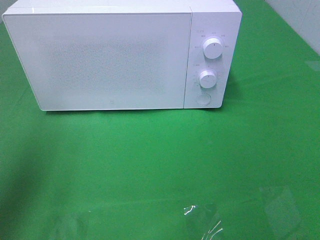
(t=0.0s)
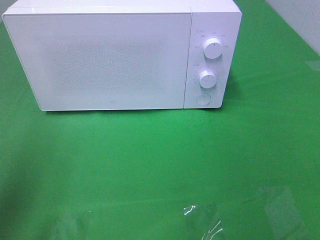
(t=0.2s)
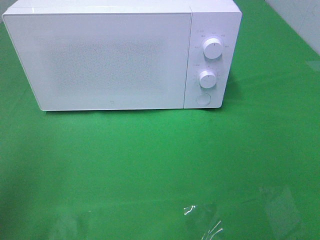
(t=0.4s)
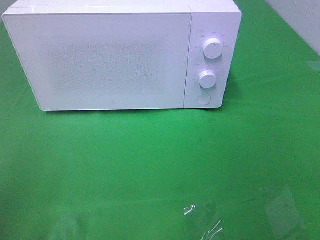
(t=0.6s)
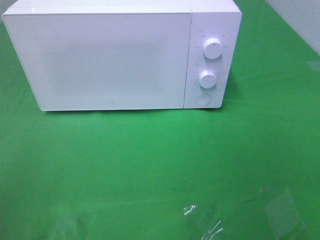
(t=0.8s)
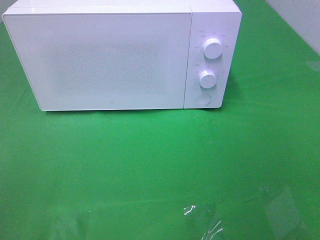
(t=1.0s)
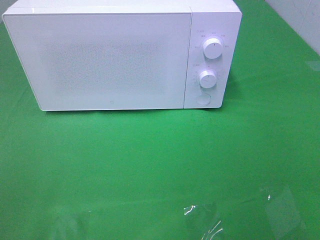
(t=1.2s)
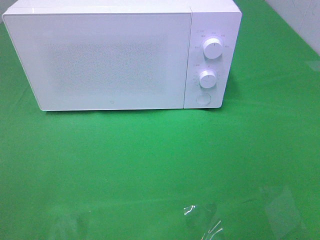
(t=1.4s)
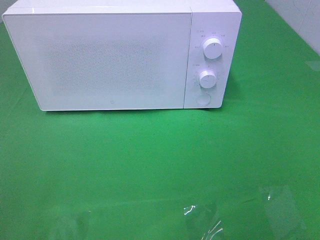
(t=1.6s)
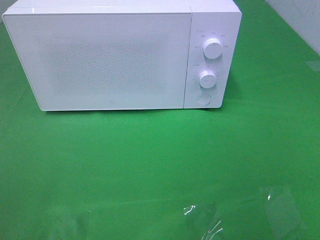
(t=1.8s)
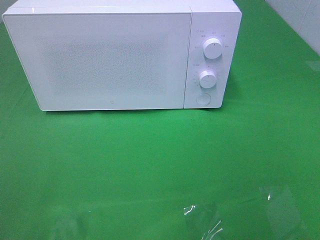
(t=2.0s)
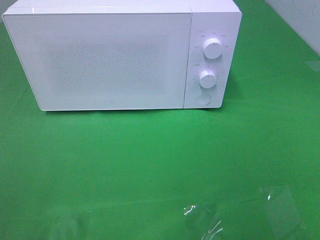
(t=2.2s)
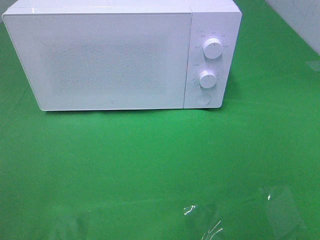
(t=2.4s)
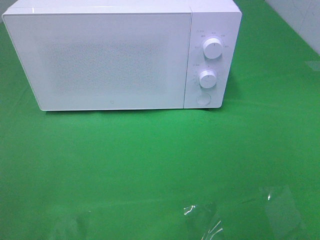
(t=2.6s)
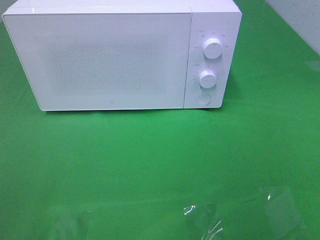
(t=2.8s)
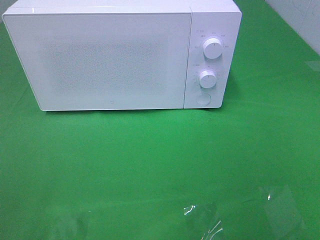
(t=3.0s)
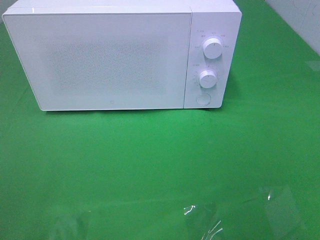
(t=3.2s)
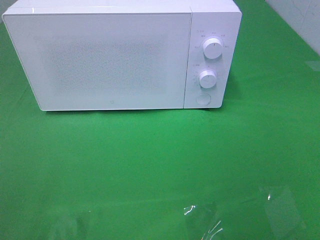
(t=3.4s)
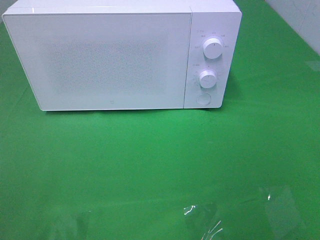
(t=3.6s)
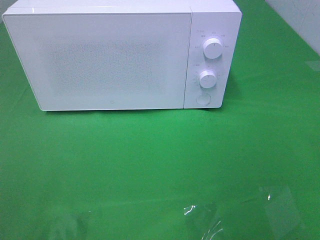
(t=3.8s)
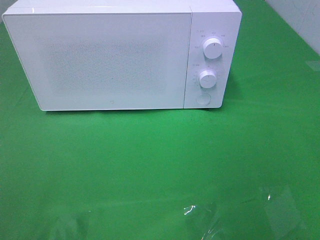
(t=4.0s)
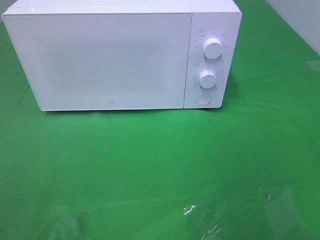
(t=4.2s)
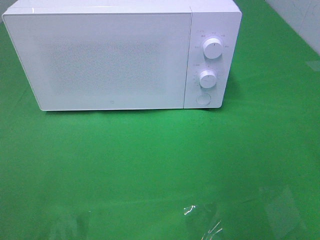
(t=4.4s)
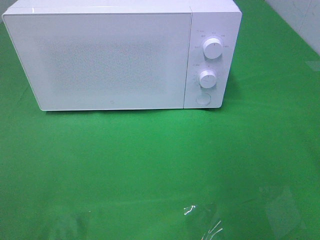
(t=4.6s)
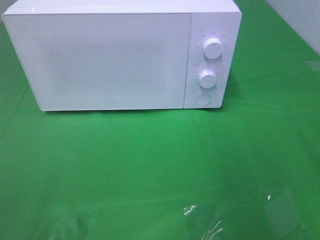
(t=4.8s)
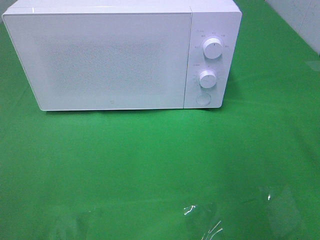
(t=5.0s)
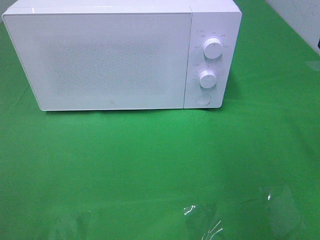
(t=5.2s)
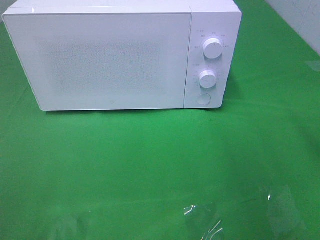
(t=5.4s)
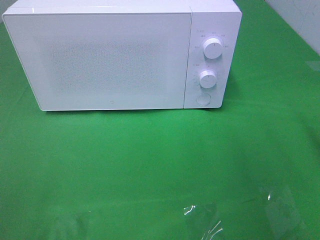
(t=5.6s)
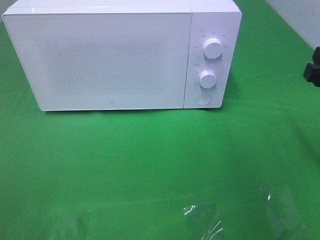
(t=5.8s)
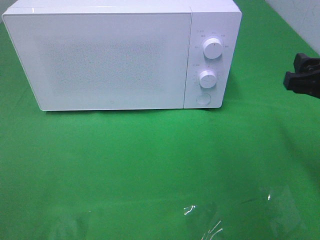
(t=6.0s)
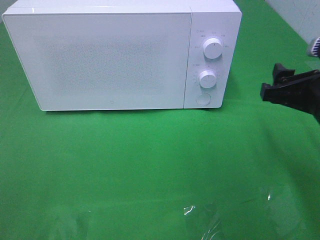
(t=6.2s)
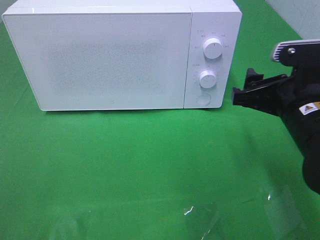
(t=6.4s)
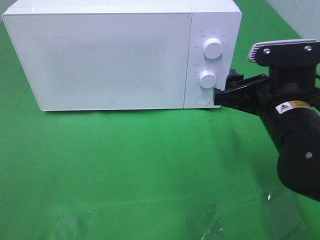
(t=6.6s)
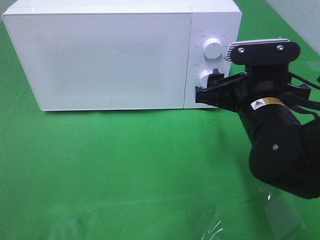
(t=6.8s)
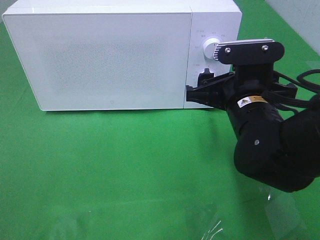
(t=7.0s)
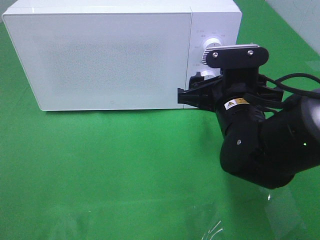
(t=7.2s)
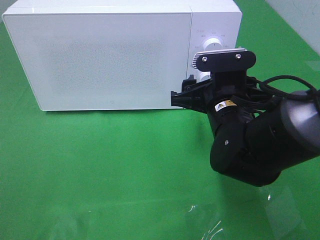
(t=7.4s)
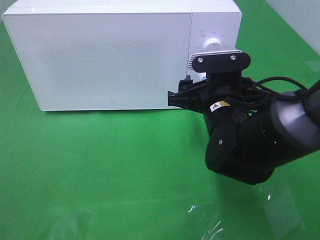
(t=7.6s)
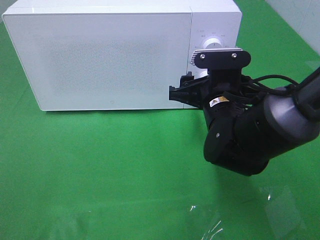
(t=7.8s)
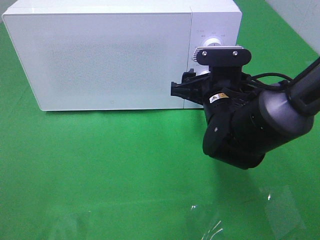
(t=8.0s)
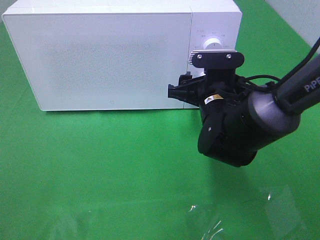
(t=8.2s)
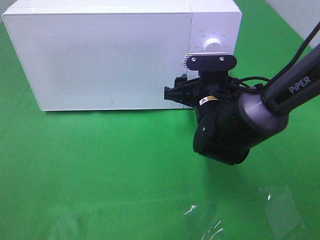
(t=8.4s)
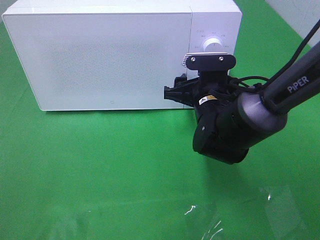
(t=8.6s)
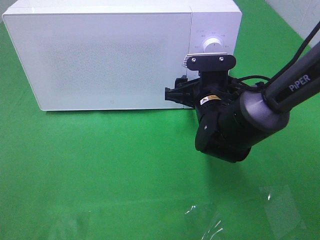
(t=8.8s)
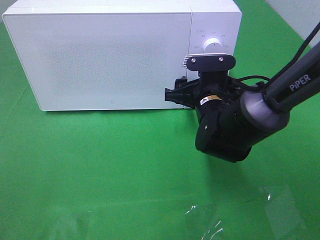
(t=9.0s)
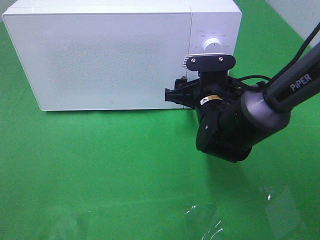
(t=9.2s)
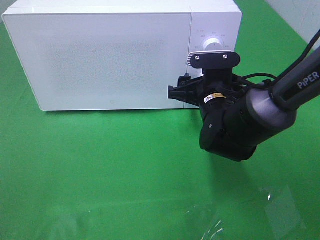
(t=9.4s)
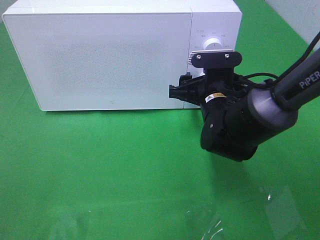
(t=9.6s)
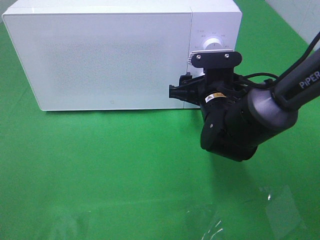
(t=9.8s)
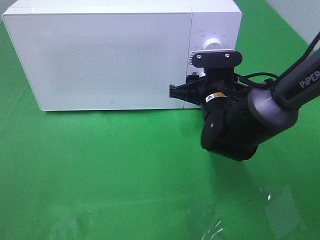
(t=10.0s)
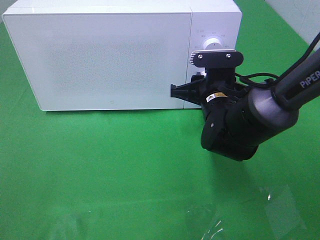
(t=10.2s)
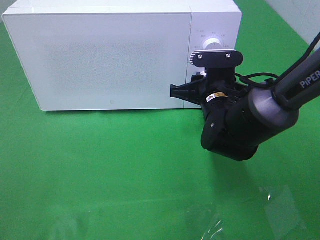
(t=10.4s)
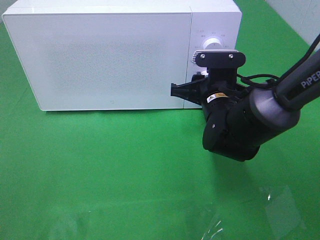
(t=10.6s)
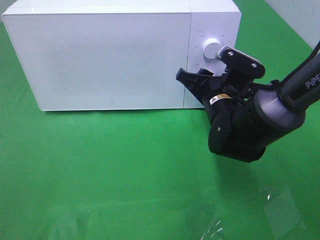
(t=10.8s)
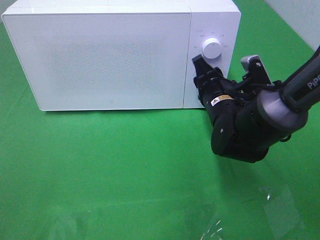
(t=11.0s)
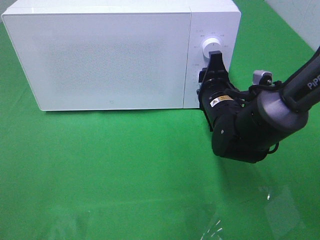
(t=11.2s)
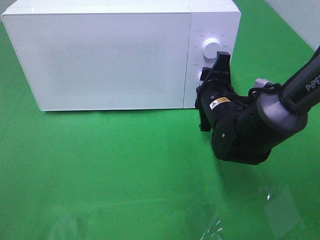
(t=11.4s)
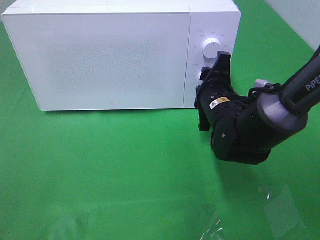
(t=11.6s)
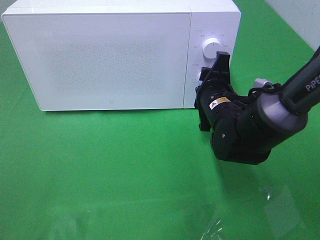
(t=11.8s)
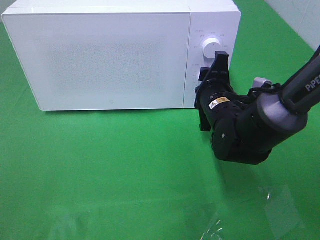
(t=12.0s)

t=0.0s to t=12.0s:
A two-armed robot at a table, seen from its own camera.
Task of the whole recording: Heat the burger.
t=0.0s to t=1.6s: The left gripper is displaced backward by some 20 cm.
t=1.6s to t=3.0s: Both grippers stay put.
t=4.4s to t=6.0s: The right gripper travels downward and forward by approximately 15 cm.
t=6.0s to t=7.6s: The right gripper moves to the left, downward and forward, some 15 cm.
t=7.6s to t=9.0s: The right gripper is displaced forward by roughly 5 cm.
t=9.0s to t=10.4s: The right gripper closes its fingers.

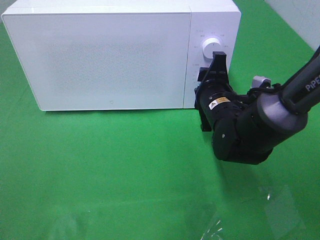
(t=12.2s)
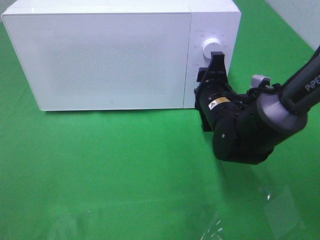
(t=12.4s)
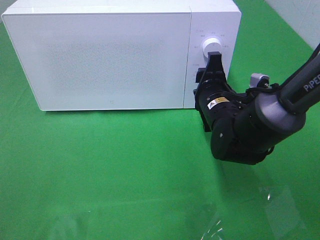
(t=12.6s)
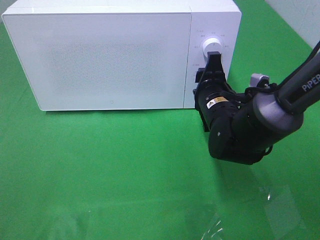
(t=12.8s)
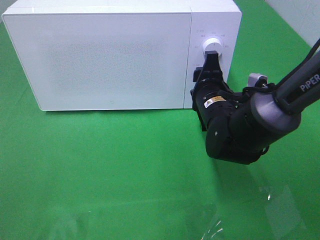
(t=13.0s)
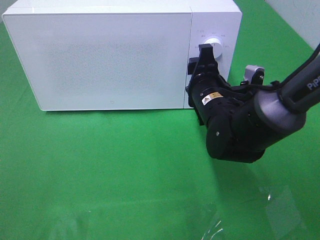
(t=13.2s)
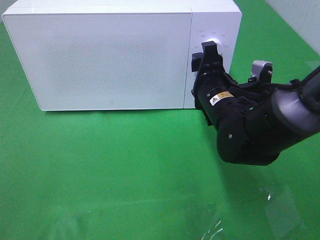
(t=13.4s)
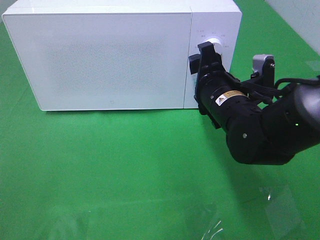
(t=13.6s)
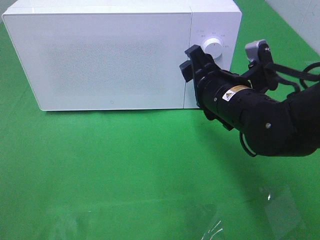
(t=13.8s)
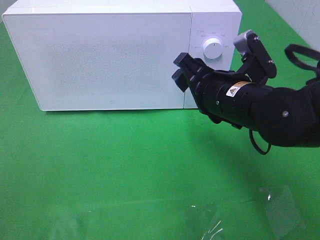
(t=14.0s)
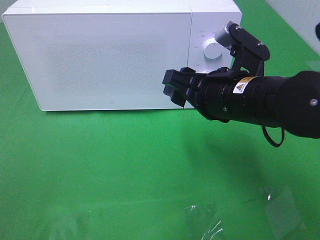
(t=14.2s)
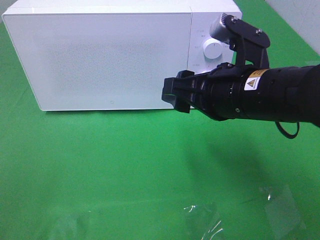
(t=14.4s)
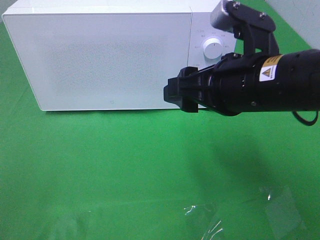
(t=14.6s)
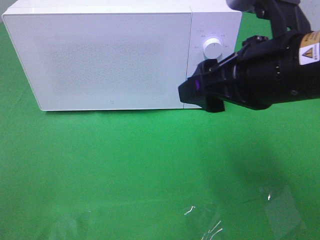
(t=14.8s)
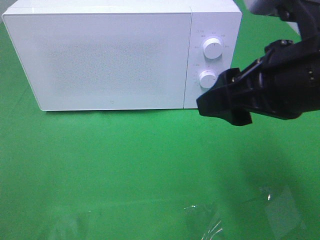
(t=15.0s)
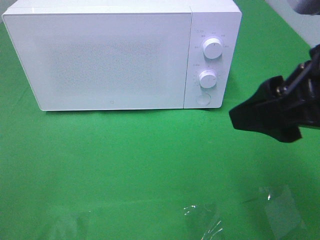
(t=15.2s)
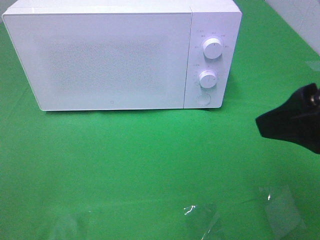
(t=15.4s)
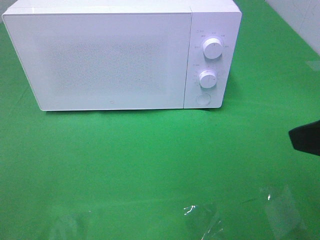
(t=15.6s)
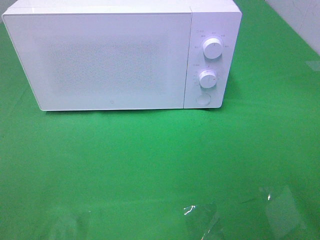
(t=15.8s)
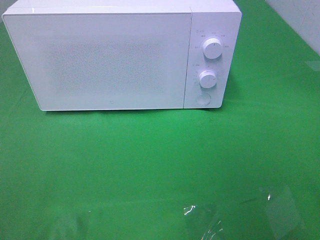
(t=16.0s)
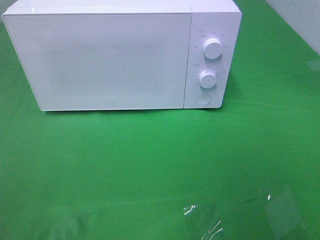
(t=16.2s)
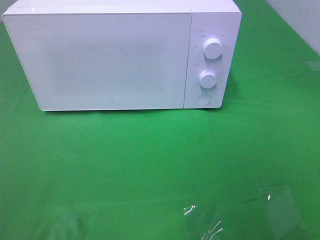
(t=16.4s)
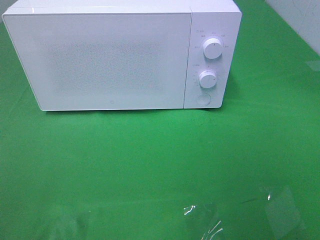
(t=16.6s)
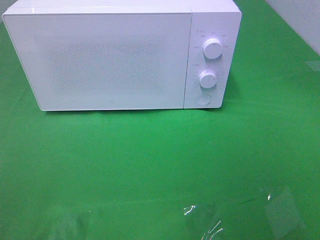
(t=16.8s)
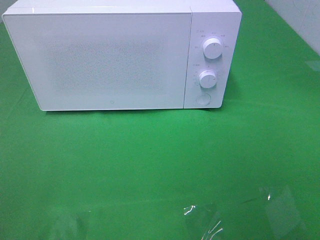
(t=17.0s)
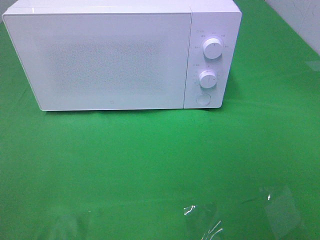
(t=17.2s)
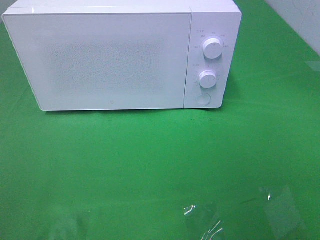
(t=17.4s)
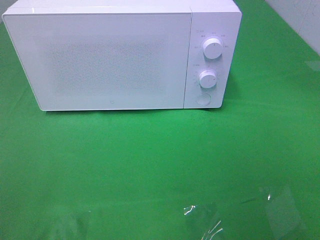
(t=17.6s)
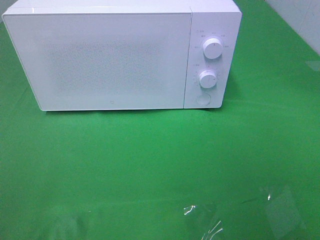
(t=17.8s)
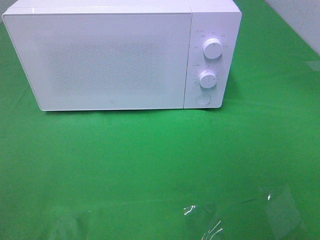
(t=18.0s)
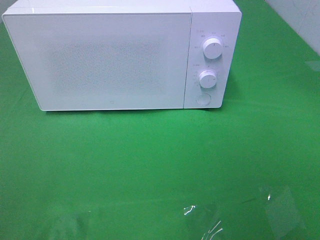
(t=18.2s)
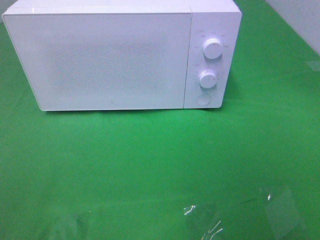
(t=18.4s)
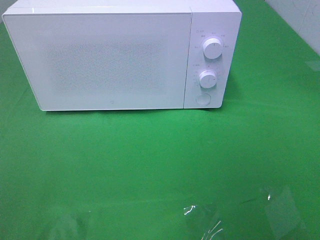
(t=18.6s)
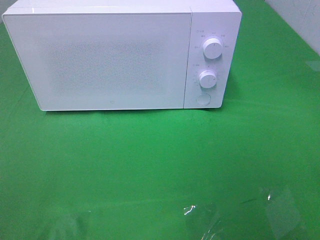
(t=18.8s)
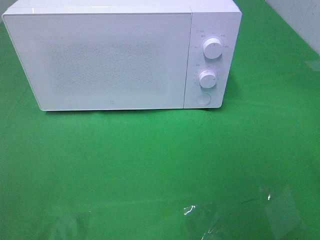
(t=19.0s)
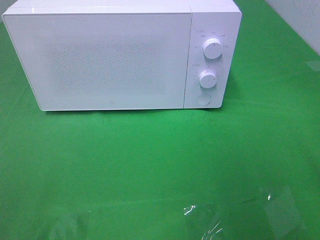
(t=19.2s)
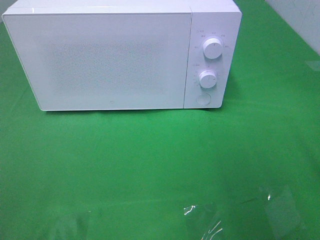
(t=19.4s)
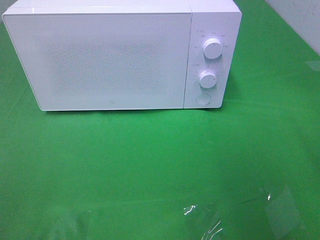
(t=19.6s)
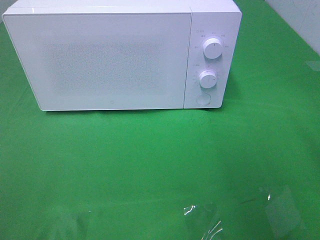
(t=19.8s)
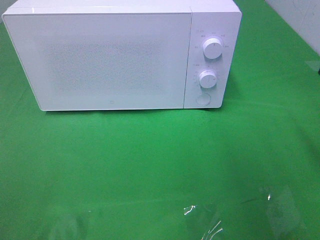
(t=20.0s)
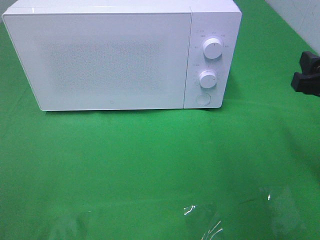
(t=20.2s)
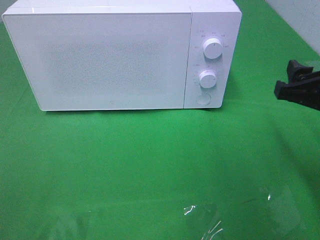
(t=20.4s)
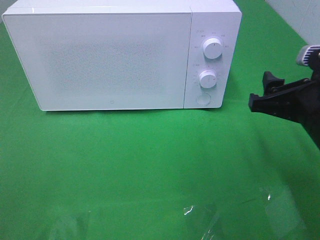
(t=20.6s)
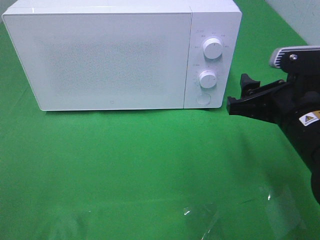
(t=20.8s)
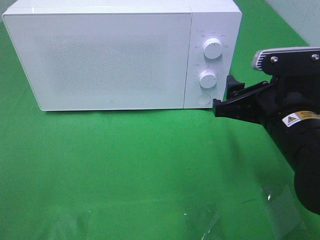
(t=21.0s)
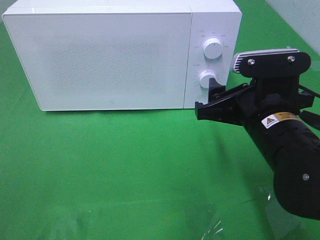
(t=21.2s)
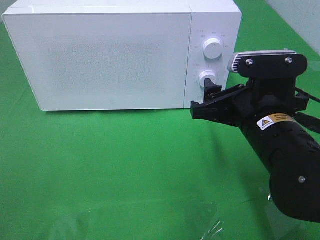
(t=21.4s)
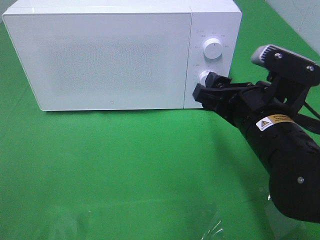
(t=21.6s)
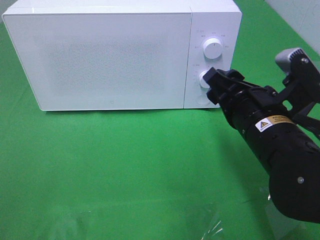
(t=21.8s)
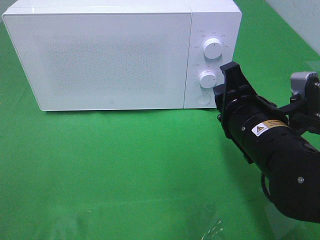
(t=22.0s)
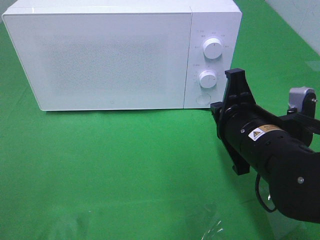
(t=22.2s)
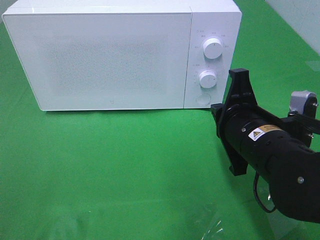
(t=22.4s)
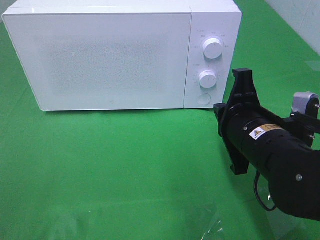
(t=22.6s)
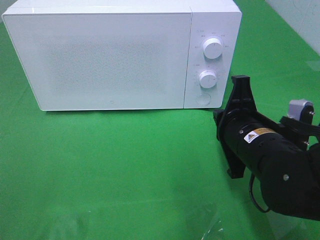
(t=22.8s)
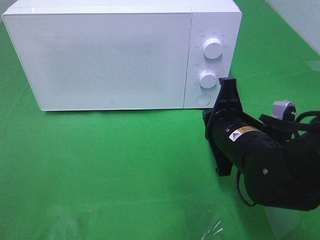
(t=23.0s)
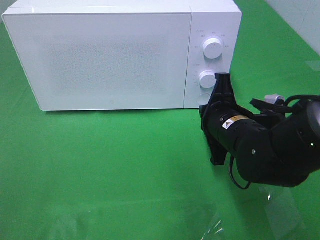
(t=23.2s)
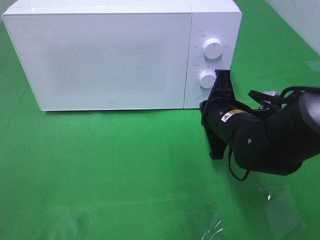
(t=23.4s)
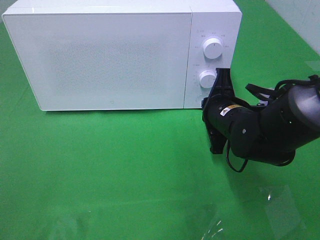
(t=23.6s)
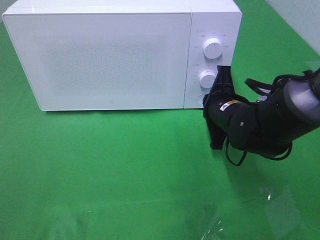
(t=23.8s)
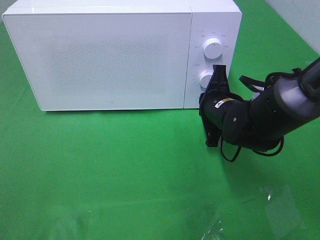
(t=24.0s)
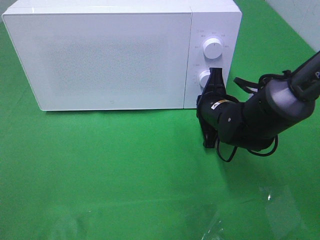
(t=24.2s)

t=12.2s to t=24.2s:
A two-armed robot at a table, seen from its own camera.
Task of the whole recording: Heat the burger.
t=12.2s to t=13.8s: The right gripper goes some 5 cm upward.
t=13.8s to t=15.2s: The right gripper is displaced upward, backward and to the right by about 20 cm.
t=15.2s to t=16.6s: The right gripper is displaced backward and to the right by roughly 15 cm.
t=19.8s to t=21.2s: The right gripper moves to the left and downward, approximately 15 cm.
t=21.2s to t=22.6s: The right gripper closes up.
t=22.6s to t=24.2s: The right gripper shifts approximately 15 cm forward and downward.
